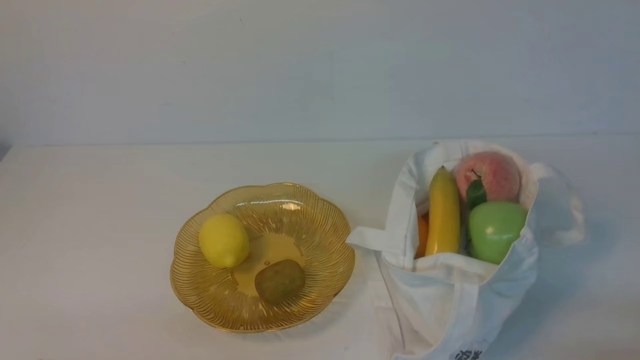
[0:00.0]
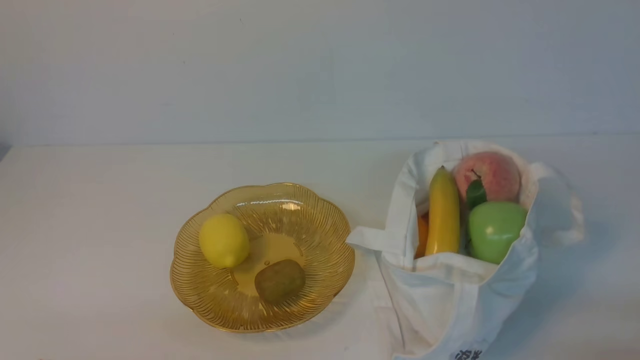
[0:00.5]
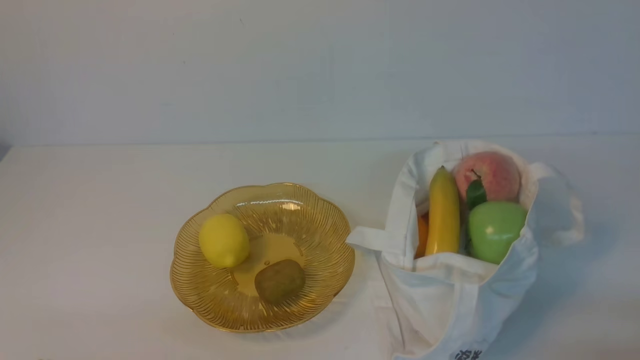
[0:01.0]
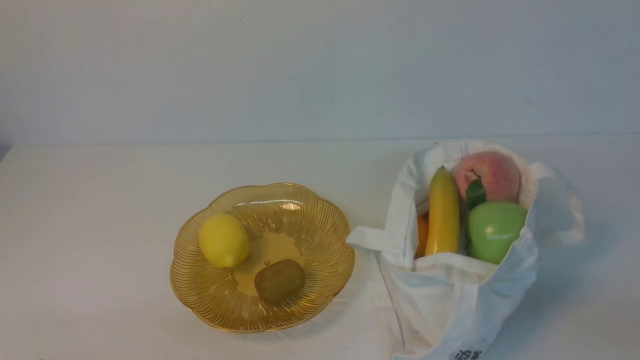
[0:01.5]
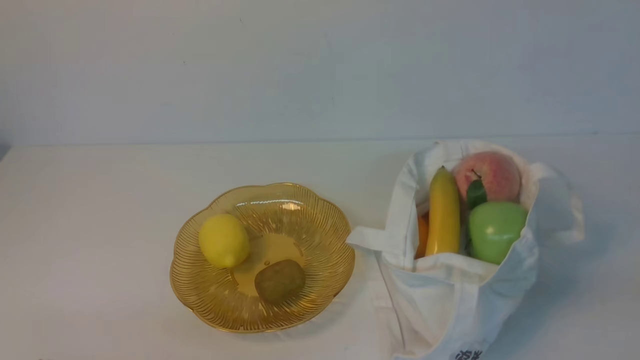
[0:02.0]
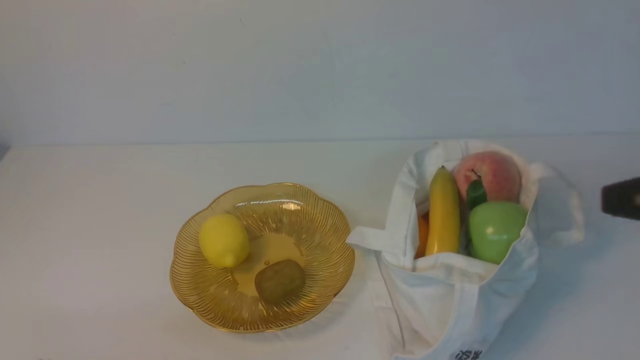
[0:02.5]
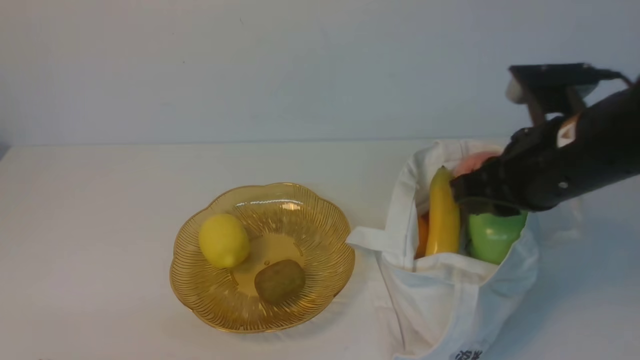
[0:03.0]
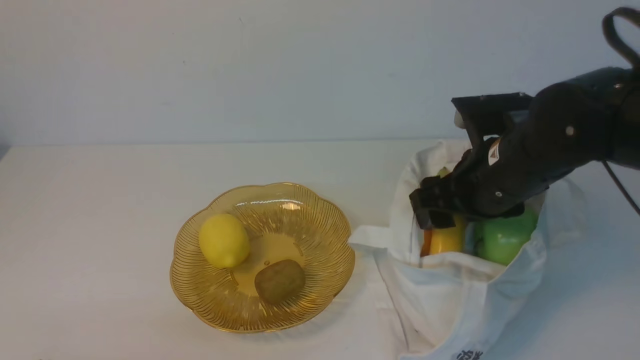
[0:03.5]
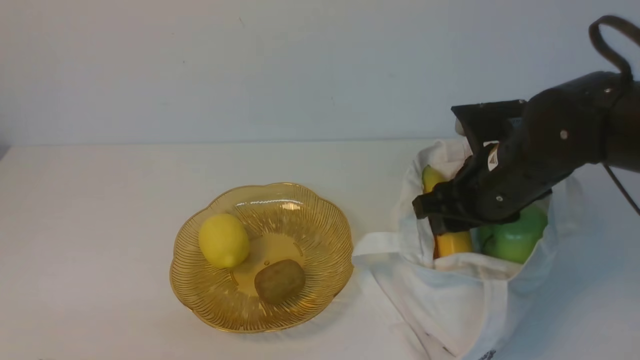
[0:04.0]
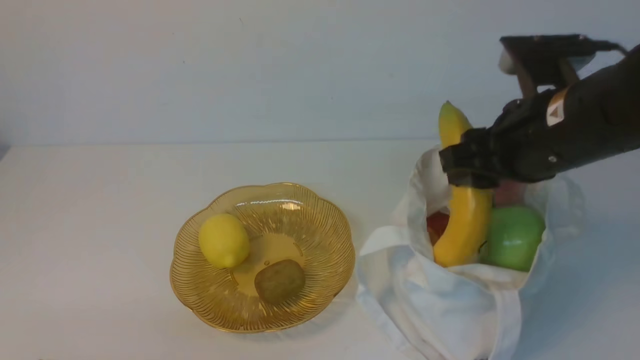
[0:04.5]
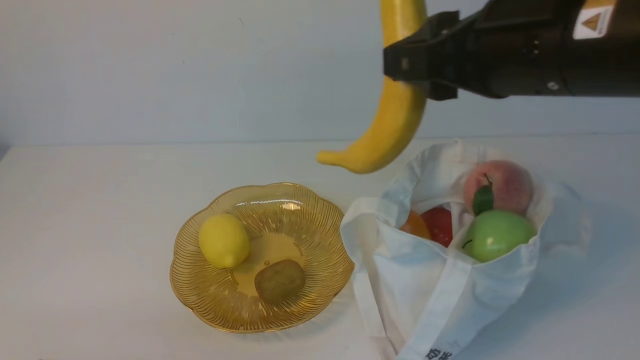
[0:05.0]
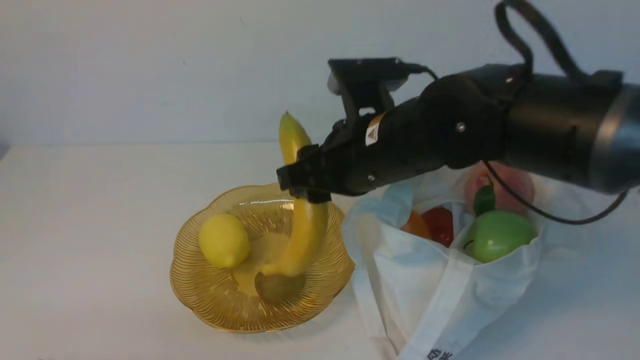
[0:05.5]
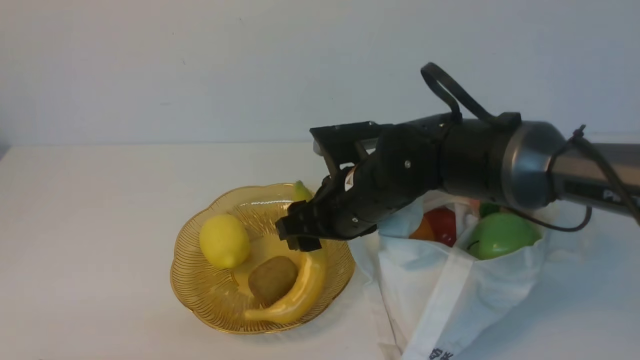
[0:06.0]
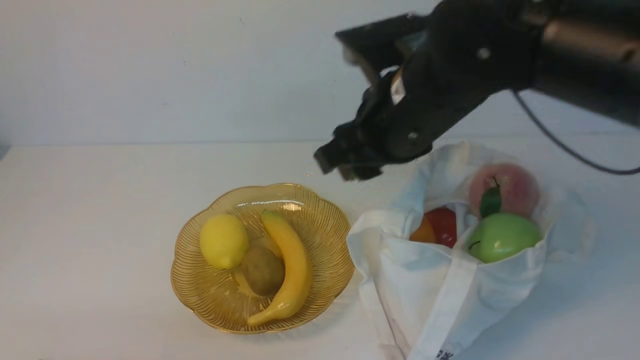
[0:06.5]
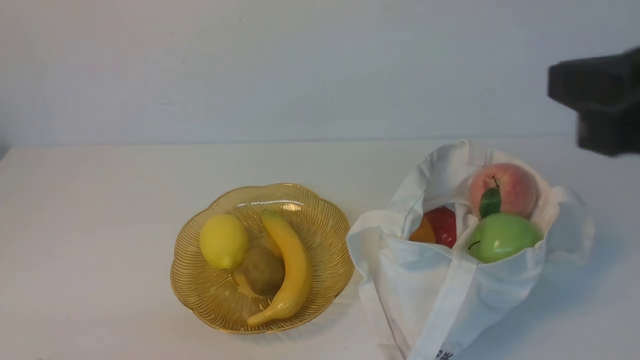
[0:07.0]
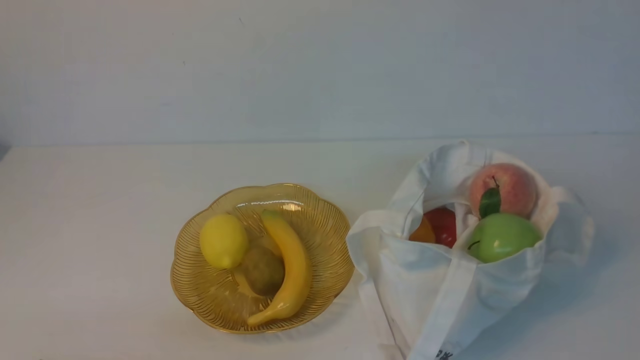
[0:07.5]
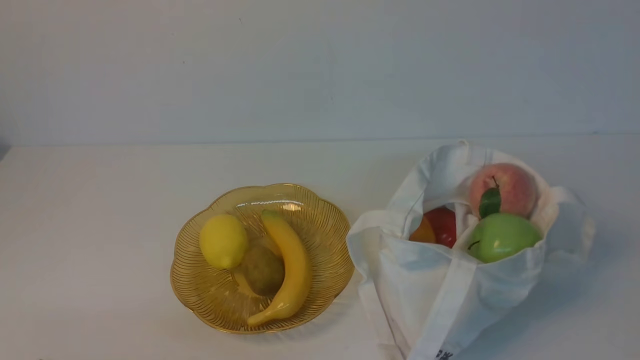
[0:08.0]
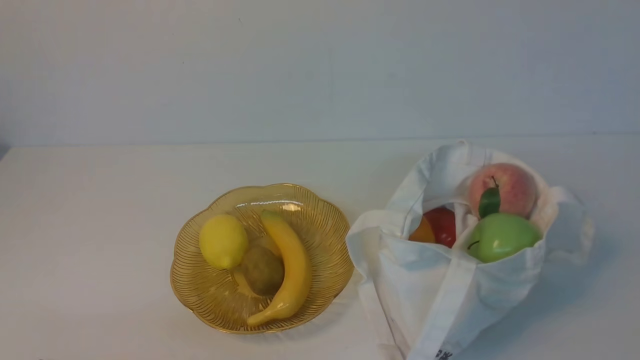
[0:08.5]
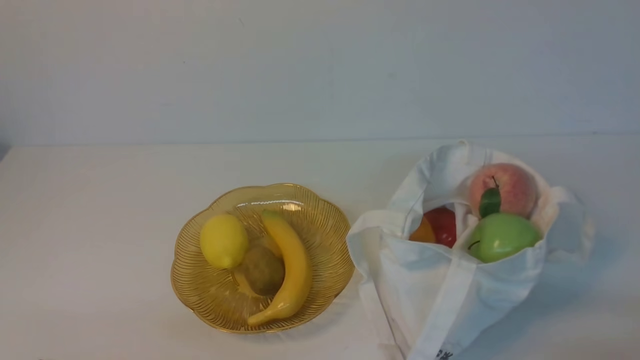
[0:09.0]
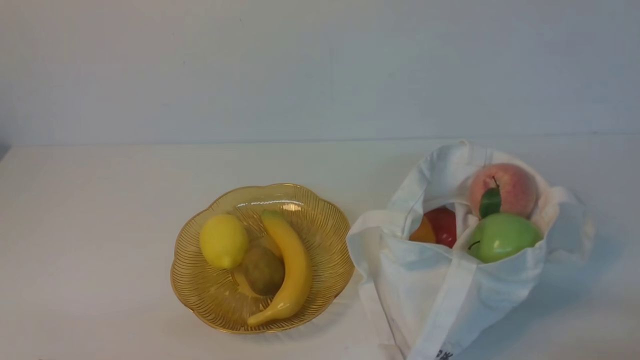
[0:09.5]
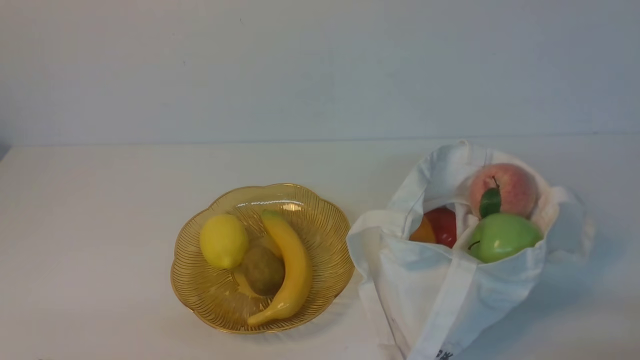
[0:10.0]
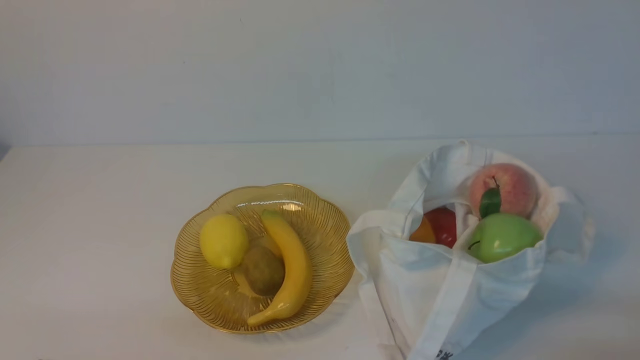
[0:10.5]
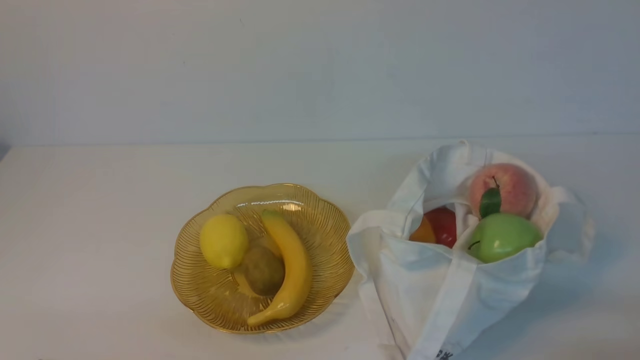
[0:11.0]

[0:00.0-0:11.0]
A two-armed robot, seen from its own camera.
Step, 0:00.0 to 0:04.0: use the right arm to grab a banana from the bag.
Step, 0:04.5 to 0:06.0: use the right arm to put the banana into the empty plate on the right.
0:02.0 to 0:03.5: The right gripper shifts about 30 cm forward and to the left, and opens up.
0:03.5 to 0:05.5: The right gripper is displaced to the left and upward by roughly 10 cm.
0:05.5 to 0:07.5: The right gripper goes about 35 cm backward and to the right, and closes.

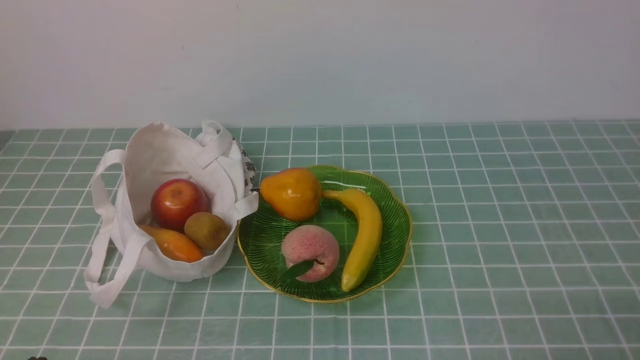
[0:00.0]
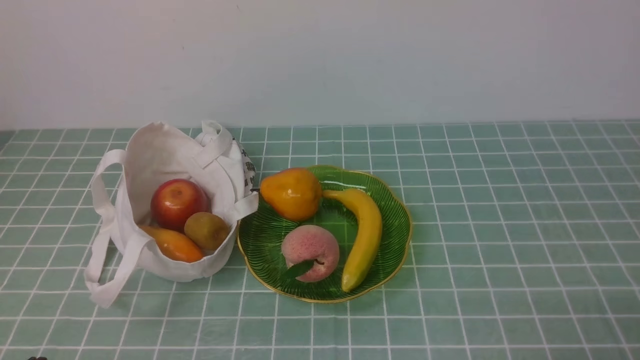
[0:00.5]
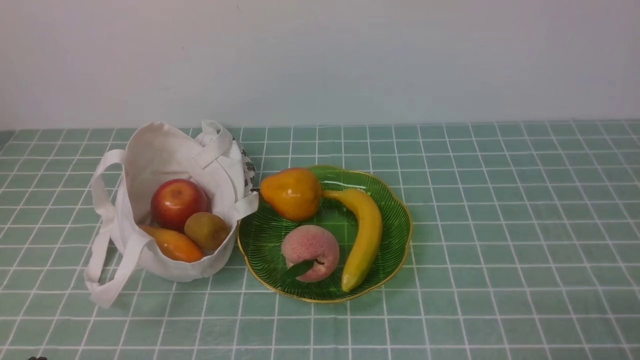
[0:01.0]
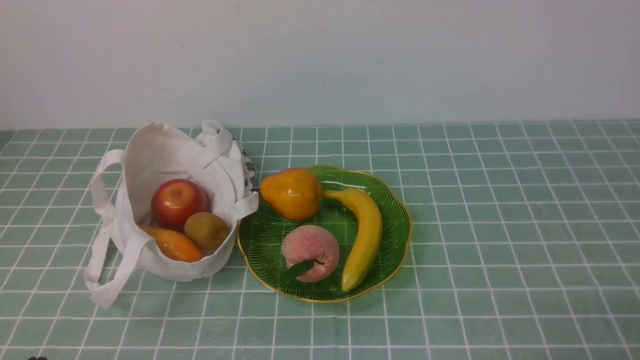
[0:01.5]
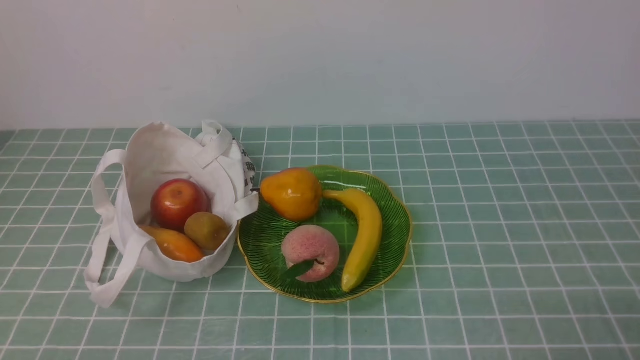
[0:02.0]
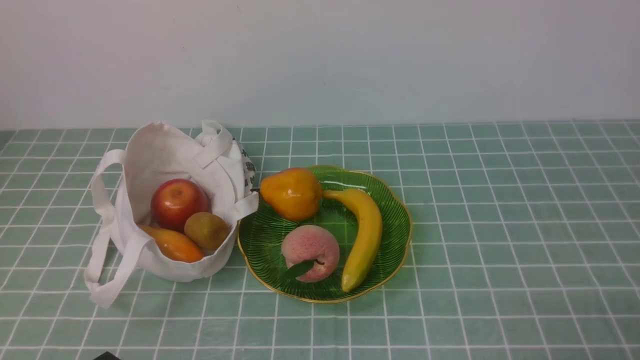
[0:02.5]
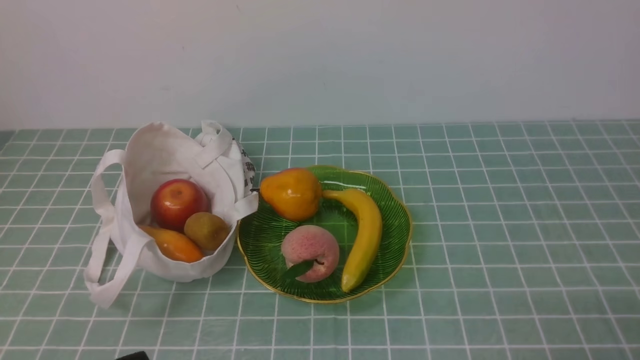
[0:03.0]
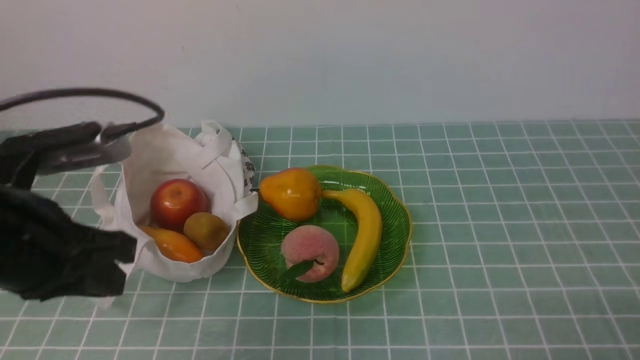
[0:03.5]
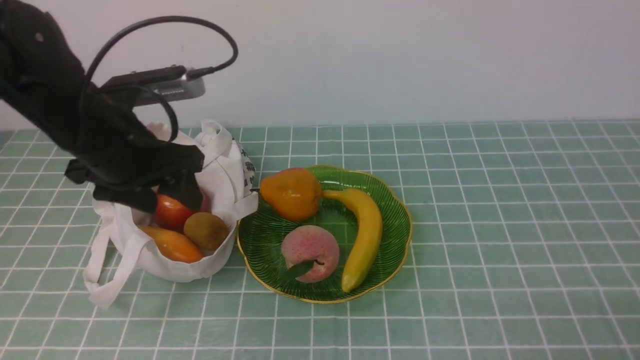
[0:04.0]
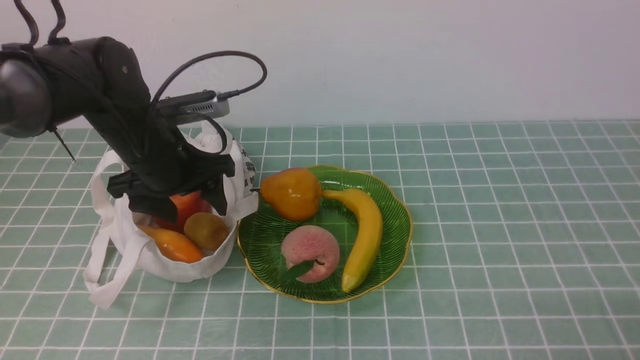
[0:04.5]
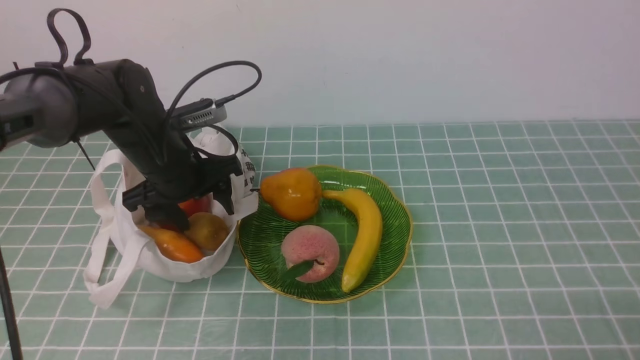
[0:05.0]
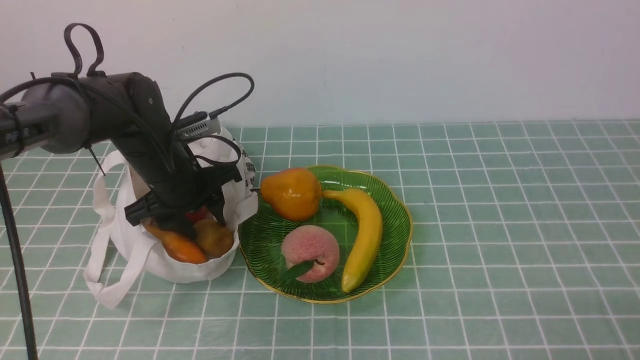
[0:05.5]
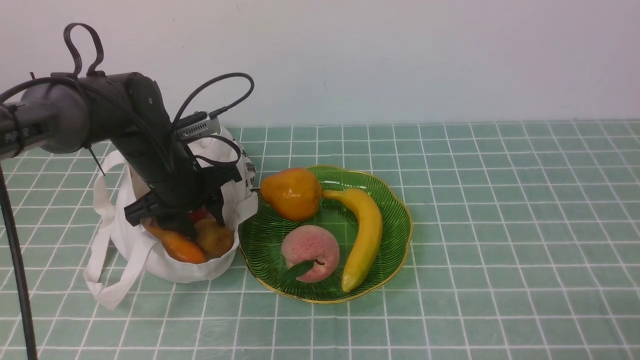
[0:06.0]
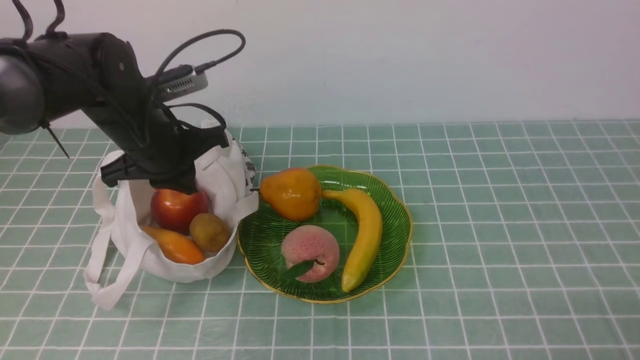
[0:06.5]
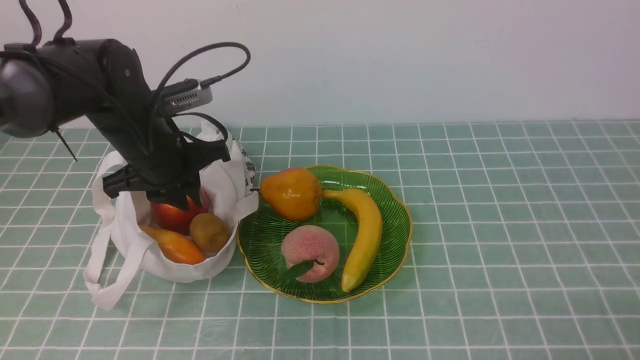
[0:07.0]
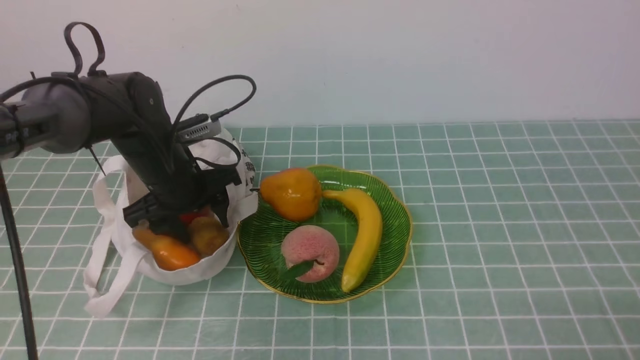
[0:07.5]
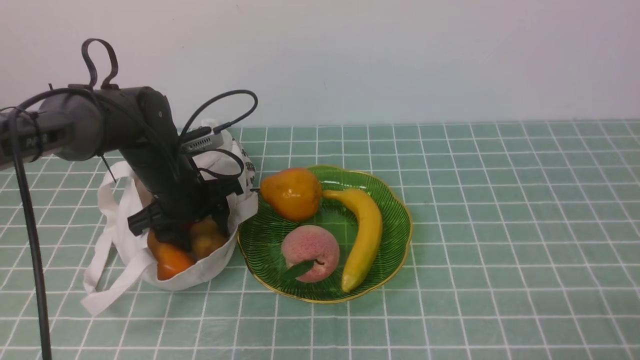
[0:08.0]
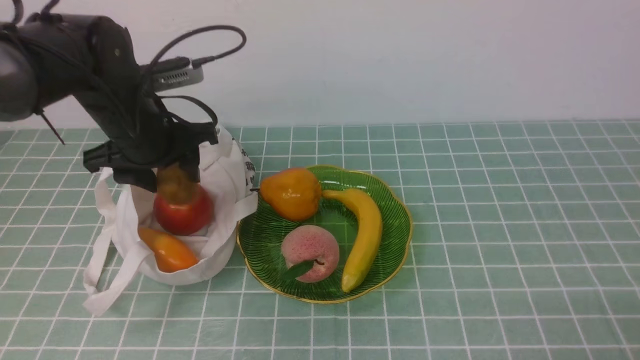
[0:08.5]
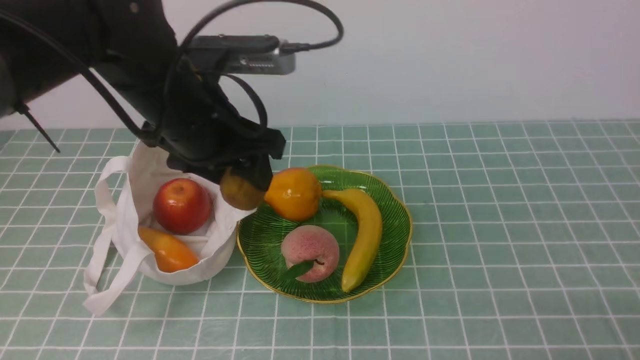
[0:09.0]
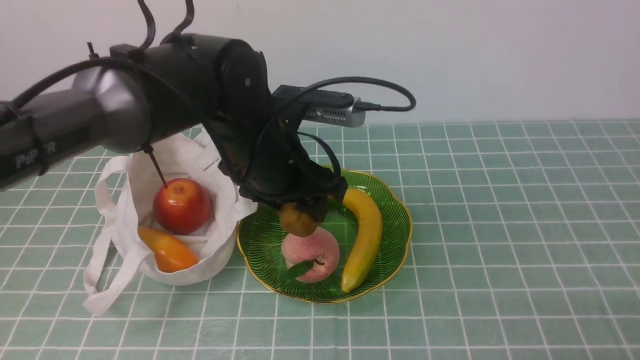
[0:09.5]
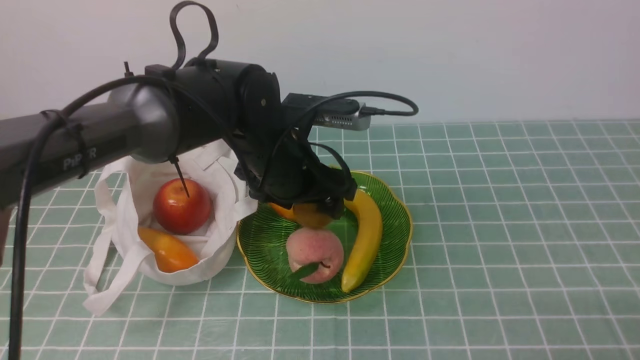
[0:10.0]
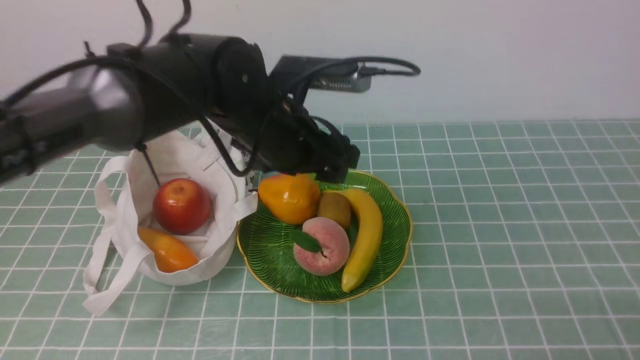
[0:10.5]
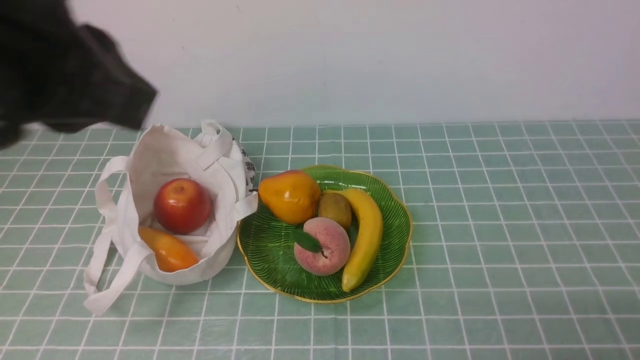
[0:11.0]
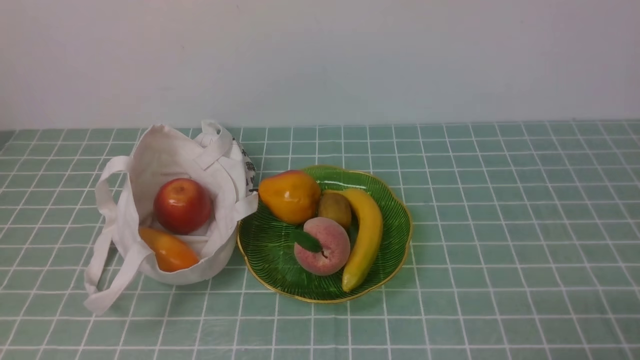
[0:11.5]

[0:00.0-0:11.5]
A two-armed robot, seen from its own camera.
Step, 0:00.0 to 0:08.0: use the left arm to grab a kiwi from the bag.
Step, 0:08.5 to 0:10.5: use the left arm to put the kiwi into the empty plate on the right.
0:02.0 to 0:04.0: The left gripper moves forward, approximately 30 cm, and opens up.
0:04.0 to 0:06.0: The left gripper goes roughly 10 cm downward and forward.
0:06.0 to 0:07.5: The left gripper closes, then reopens.
0:07.5 to 0:09.5: The left gripper travels to the right, upward and backward by approximately 15 cm.
0:09.5 to 0:11.5: The left gripper travels backward and to the left by roughly 35 cm, and closes.
